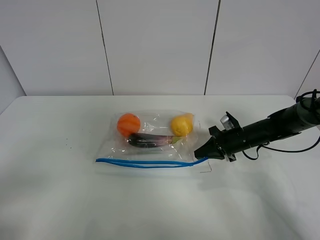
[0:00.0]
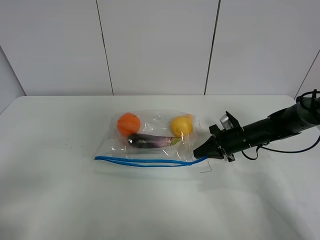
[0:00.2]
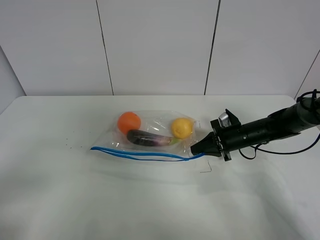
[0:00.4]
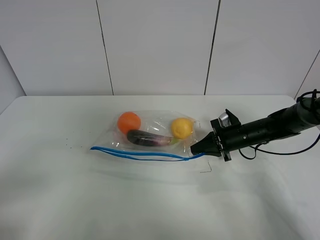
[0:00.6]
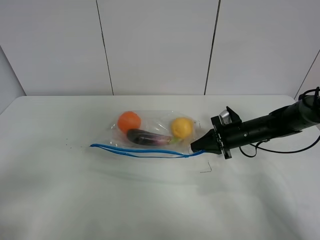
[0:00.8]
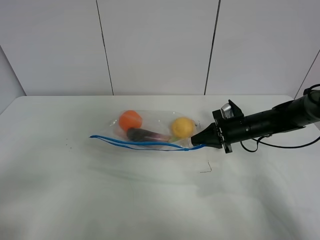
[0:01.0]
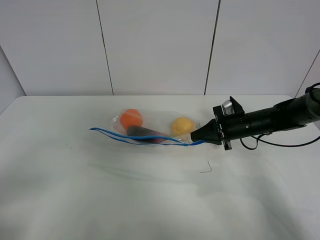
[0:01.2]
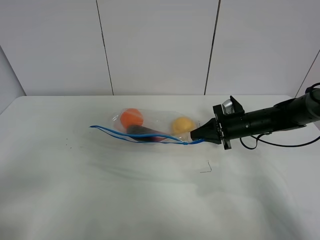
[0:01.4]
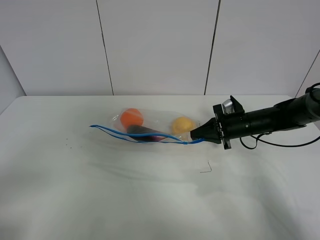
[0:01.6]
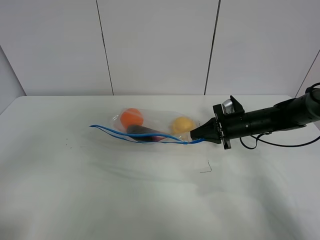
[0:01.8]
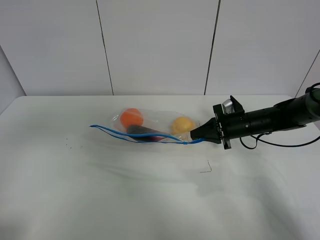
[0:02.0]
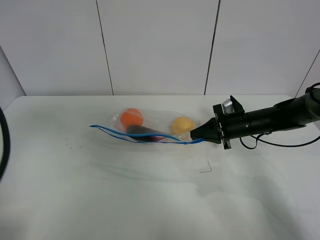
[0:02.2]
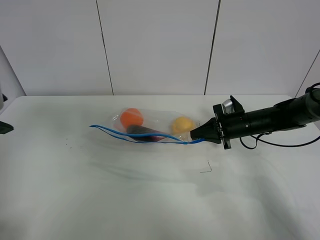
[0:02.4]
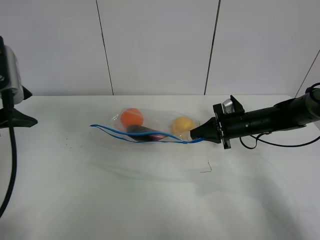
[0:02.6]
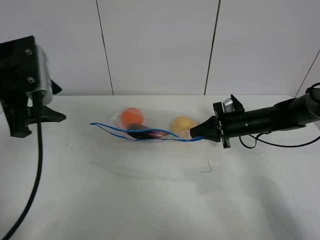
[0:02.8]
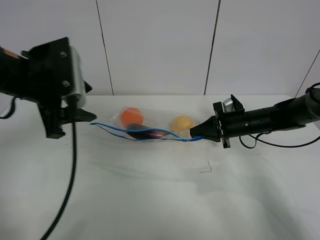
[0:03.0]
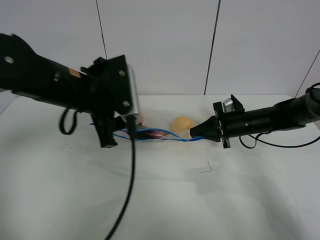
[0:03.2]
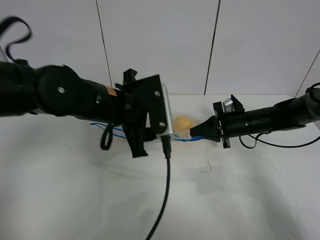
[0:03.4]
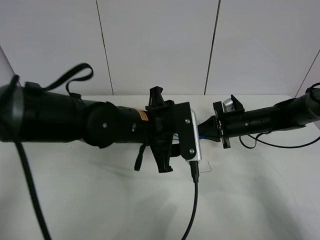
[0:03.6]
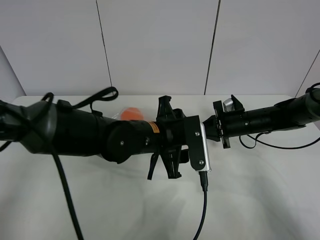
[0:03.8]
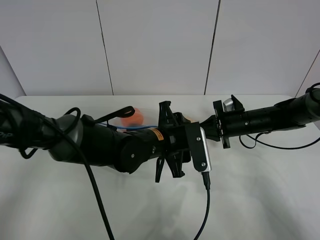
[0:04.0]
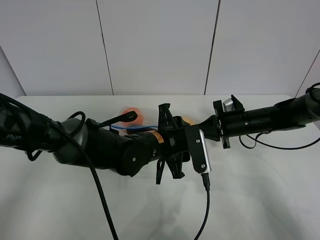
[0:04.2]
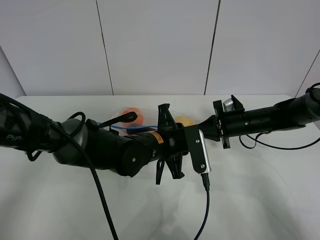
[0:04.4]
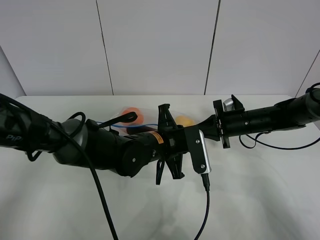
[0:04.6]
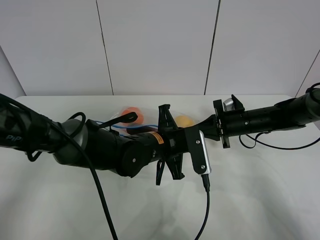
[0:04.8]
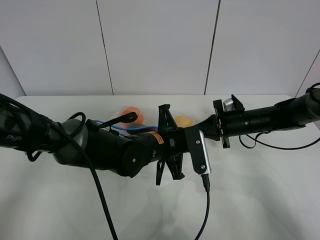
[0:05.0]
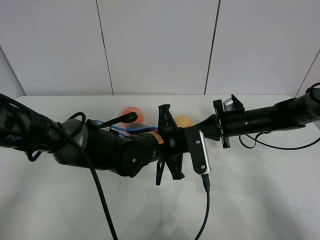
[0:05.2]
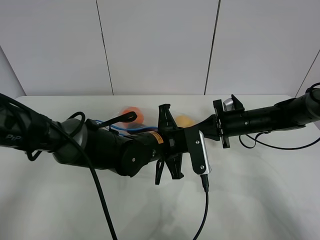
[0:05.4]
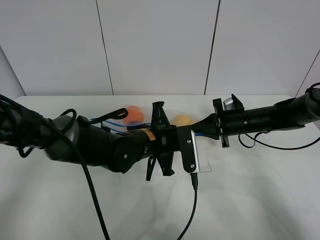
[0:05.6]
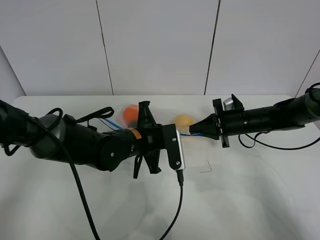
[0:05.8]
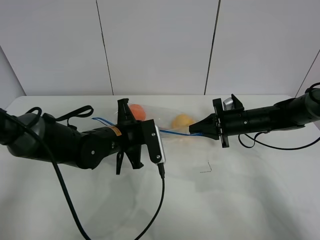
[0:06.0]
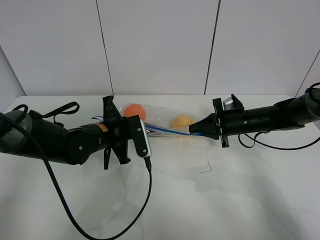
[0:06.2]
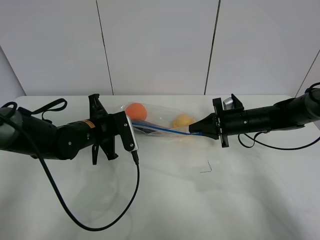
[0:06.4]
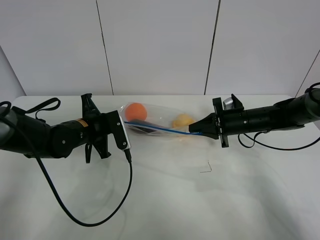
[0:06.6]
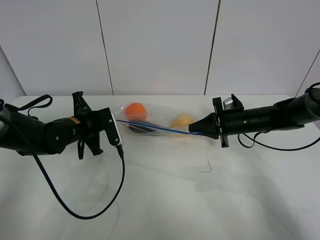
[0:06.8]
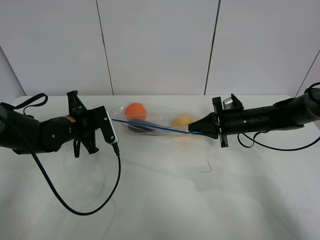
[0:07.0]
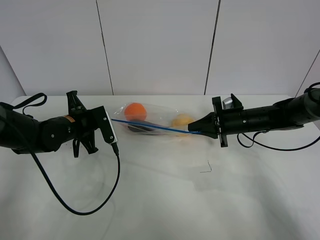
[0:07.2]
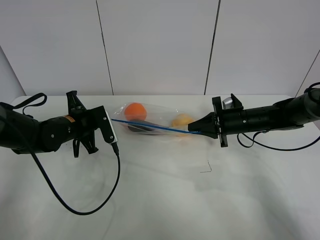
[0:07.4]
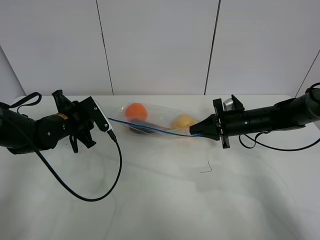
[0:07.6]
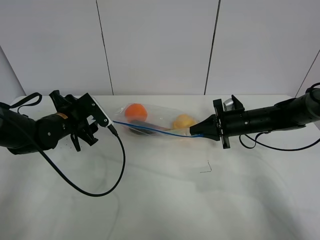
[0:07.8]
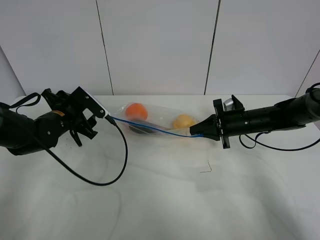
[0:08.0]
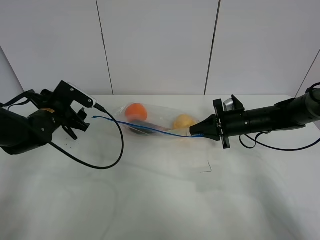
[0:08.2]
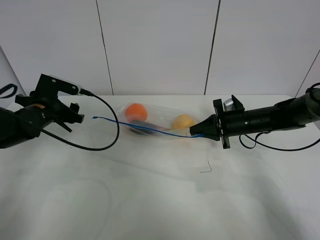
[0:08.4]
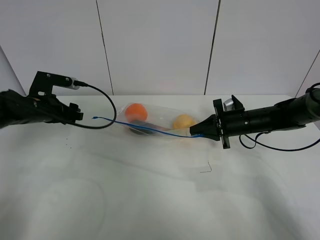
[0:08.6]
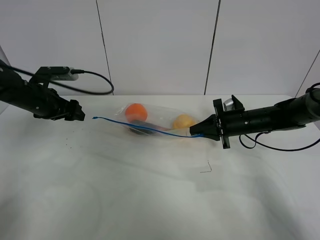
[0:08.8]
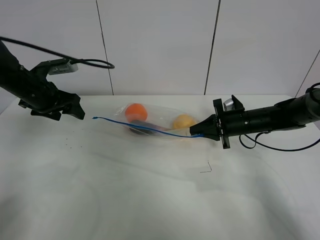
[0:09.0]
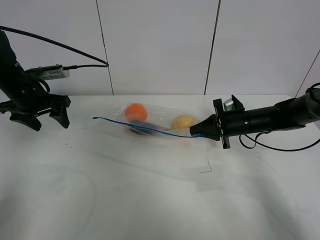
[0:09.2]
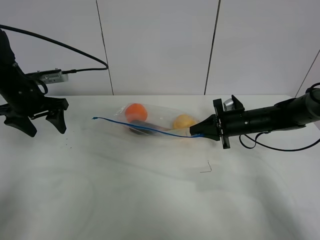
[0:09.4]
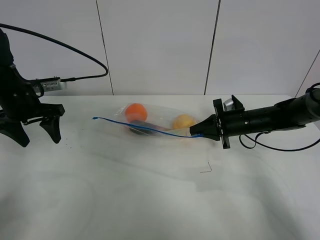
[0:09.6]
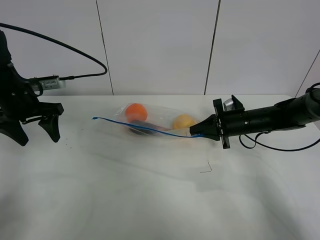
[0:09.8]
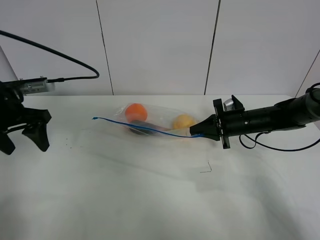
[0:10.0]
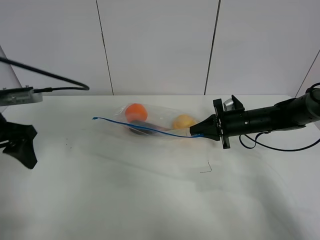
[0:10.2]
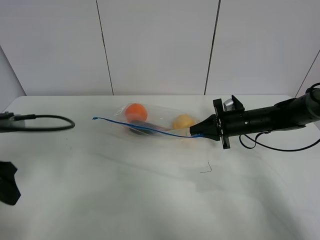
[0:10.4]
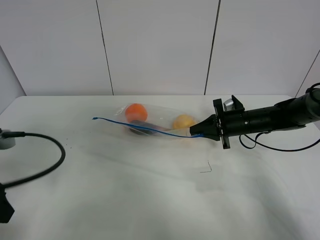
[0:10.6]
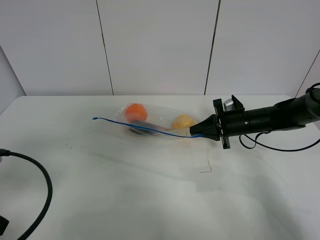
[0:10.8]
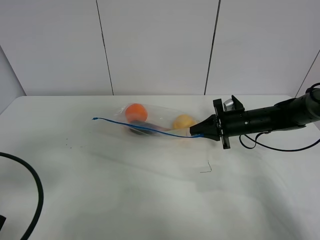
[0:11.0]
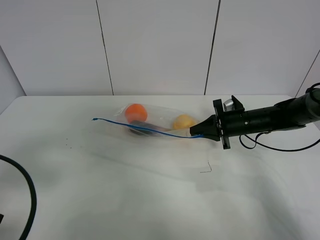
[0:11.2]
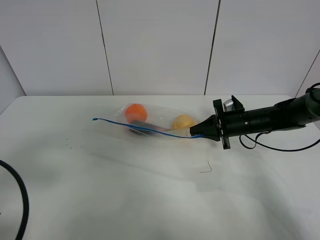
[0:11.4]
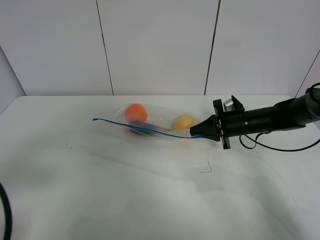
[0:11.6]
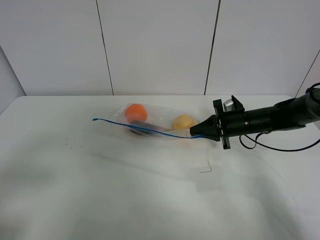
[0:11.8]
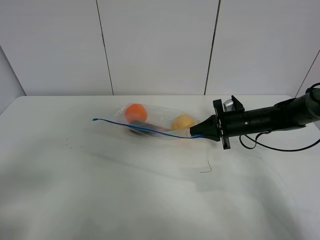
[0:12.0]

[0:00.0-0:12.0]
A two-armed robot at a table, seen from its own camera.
Step, 0:00.0 to 0:01.2: Lift the fruit bag with your right gripper.
Step, 0:01.4 to 0:07.6: Pull the fruit bag with left gripper.
0:00.0 to 0:01.6: The grippers make only small movements.
0:01.6 to 0:03.0: The left gripper travels forward and to the right by some 30 cm.
0:03.0 to 0:04.4: The left gripper goes approximately 25 cm to the right and downward, and closes up.
0:04.4 to 0:06.0: The left gripper is displaced to the left by roughly 10 cm.
0:06.0 to 0:07.6: The left gripper travels to the left by some 10 cm, and opens its fingers.
0:07.6 to 0:09.0: The left gripper heads upward and to the left, covering some 10 cm.
0:09.0 to 0:10.4: The left gripper shifts approximately 20 cm backward.
0:10.4 to 0:12.0: The left gripper is displaced backward by some 15 cm.

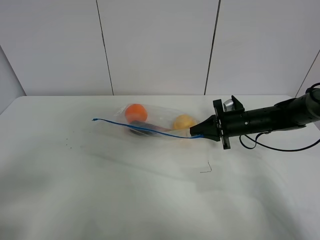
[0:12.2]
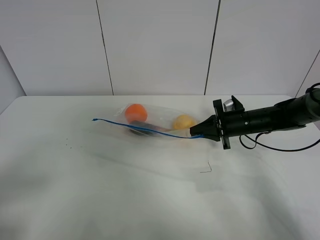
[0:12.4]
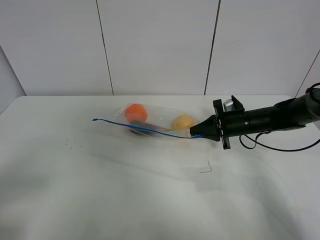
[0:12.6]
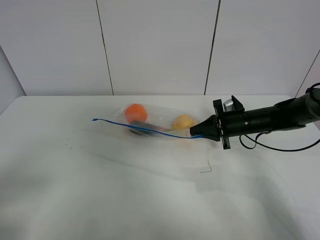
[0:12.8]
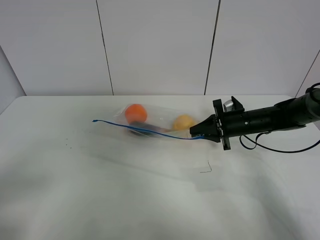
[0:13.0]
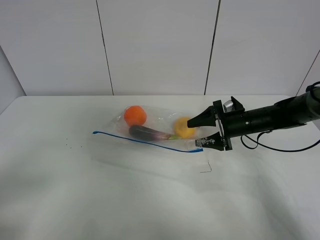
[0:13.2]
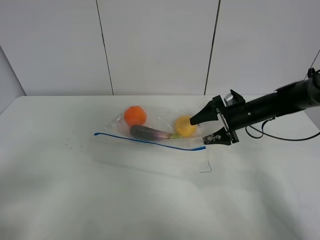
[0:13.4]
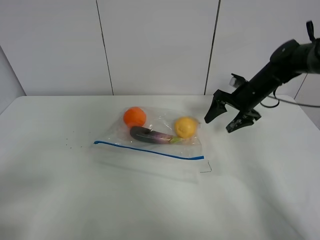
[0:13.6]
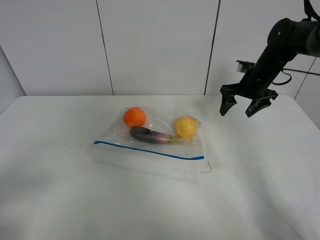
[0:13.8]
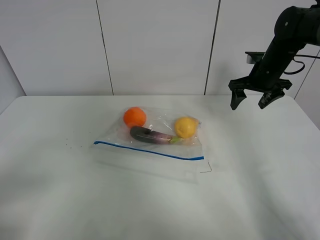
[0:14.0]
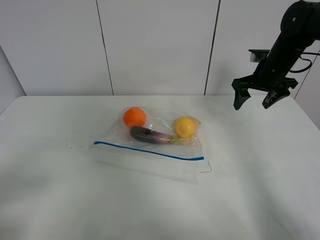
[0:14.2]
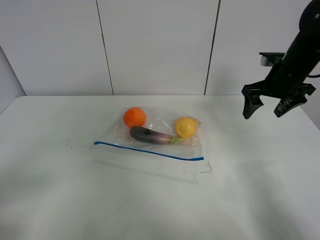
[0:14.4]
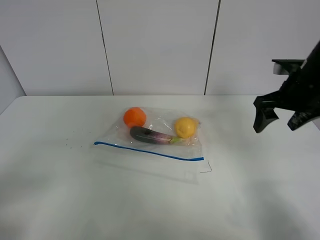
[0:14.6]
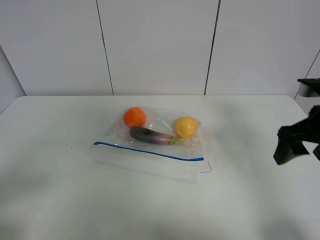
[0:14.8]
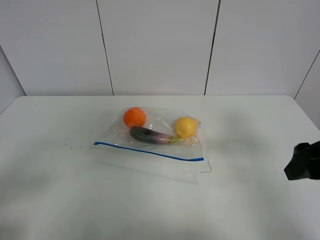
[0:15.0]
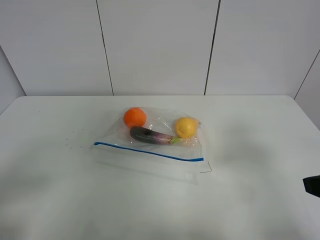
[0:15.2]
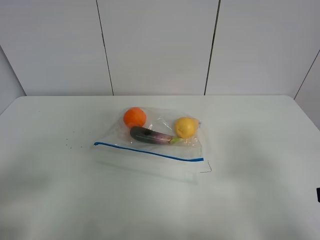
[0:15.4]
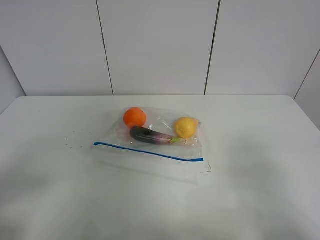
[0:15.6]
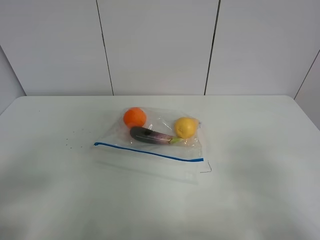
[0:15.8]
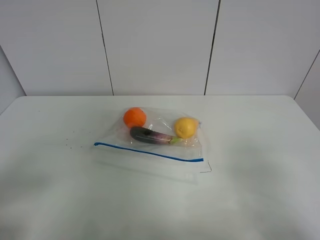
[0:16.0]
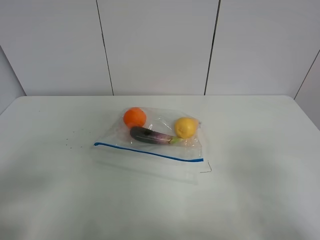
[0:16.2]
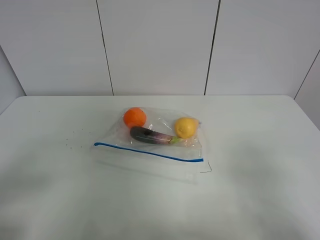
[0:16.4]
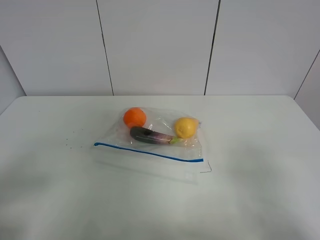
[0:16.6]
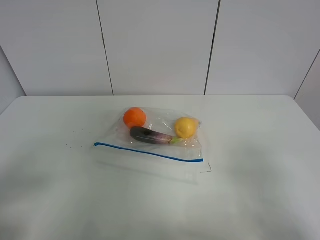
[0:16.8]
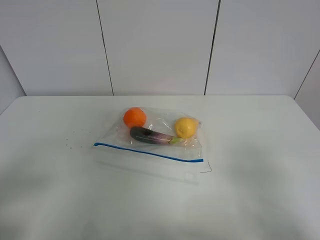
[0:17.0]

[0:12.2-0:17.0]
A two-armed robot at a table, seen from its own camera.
0:12.2 to 0:13.8: The right gripper goes about 10 cm upward and forward, and opens its fingers.
0:13.8 to 0:15.4: The right gripper heads backward, covering roughly 40 cm.

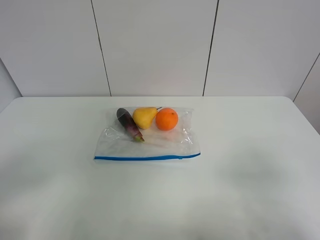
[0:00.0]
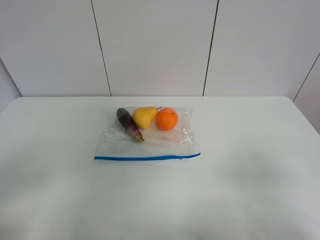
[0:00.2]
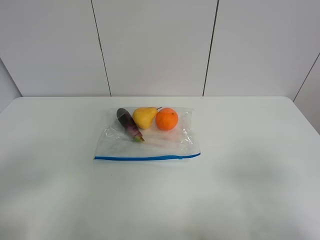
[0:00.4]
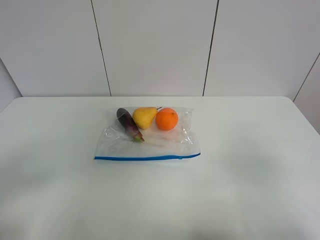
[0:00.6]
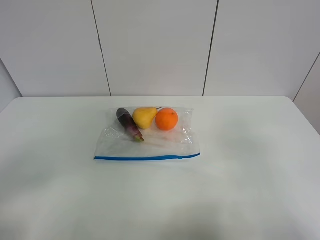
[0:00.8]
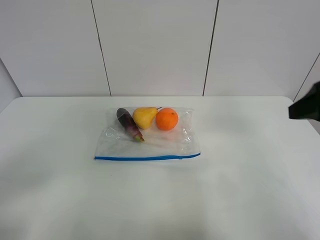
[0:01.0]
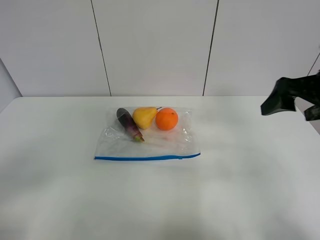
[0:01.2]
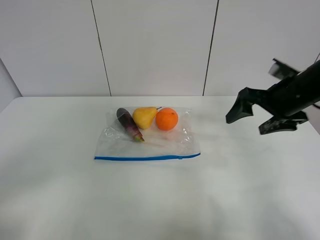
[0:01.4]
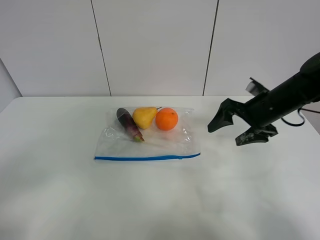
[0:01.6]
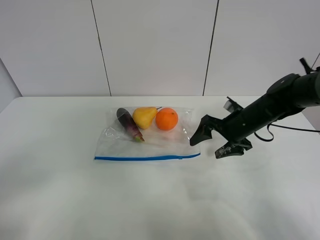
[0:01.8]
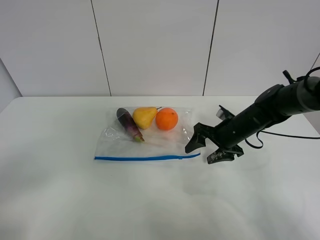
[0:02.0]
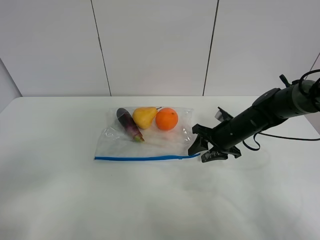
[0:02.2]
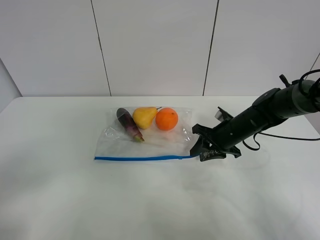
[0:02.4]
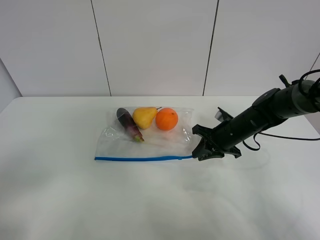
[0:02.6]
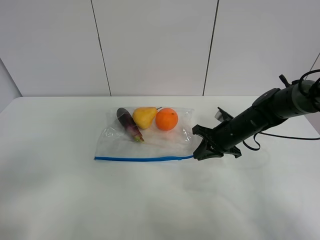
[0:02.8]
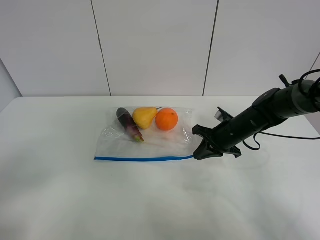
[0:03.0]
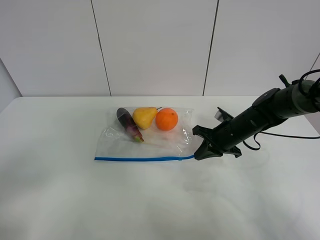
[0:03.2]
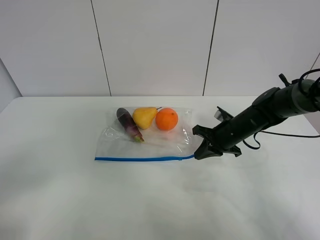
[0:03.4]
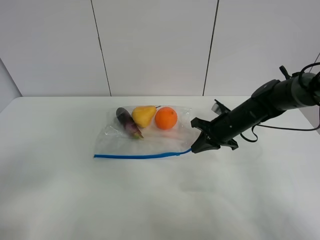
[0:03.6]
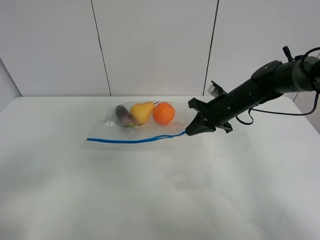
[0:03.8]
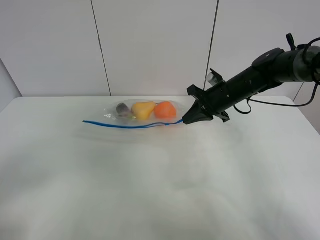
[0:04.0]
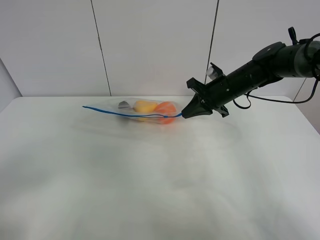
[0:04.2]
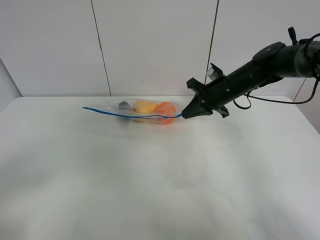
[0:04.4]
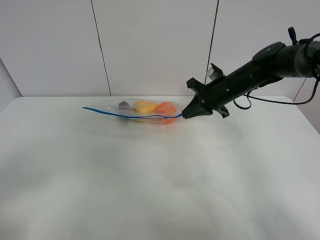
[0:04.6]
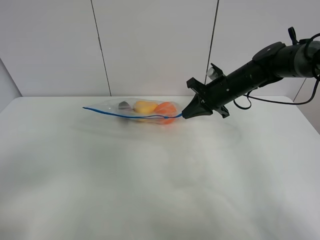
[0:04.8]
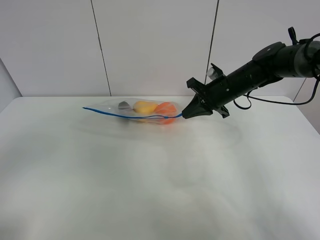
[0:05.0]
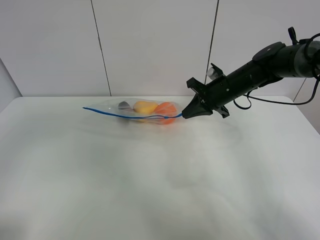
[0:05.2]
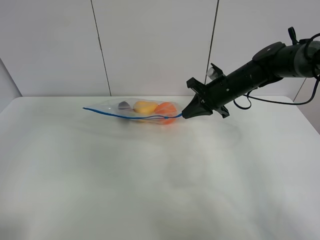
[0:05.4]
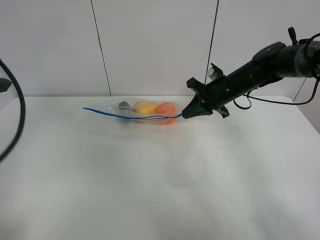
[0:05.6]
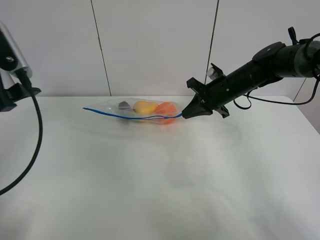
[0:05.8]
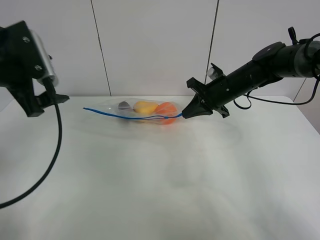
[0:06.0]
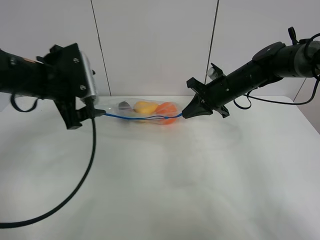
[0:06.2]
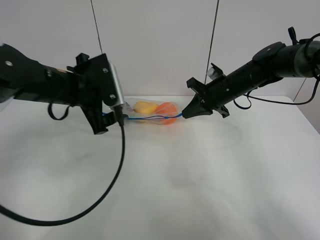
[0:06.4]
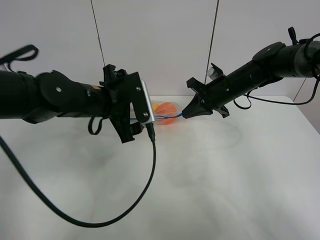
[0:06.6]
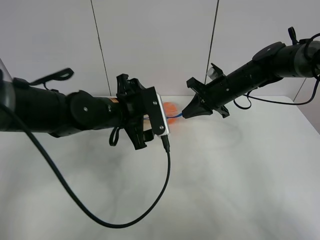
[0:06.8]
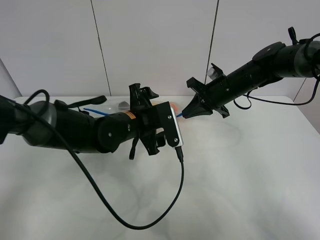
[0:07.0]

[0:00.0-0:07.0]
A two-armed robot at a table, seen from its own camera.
Step, 0:00.0 to 0:03.2: Grasp the fruit bag with right gripper.
Step, 0:03.4 to 0:04.4: Lift the fruit bag with your right gripper.
0:00.0 to 0:01.4: The right gripper moves forward, some 30 cm.
0:01.4 to 0:02.8: The right gripper goes approximately 15 cm downward and to the left, and closes up.
0:02.8 to 0:04.2: The right gripper moves upward and forward, some 10 cm.
0:04.2 to 0:05.6: The left gripper heads forward and upward, covering approximately 25 cm.
0:05.6 to 0:07.0: The left gripper heads to the right, downward and forward, covering about 35 cm.
